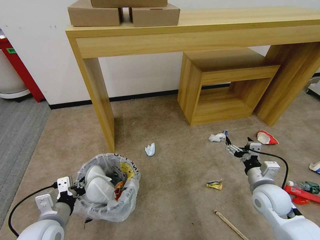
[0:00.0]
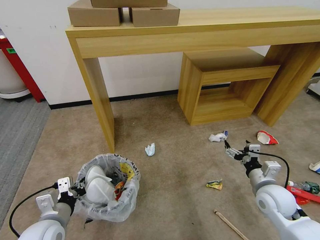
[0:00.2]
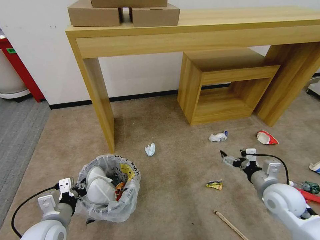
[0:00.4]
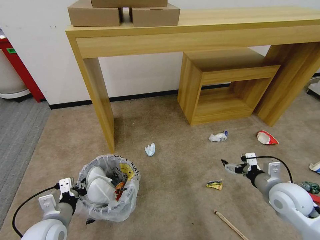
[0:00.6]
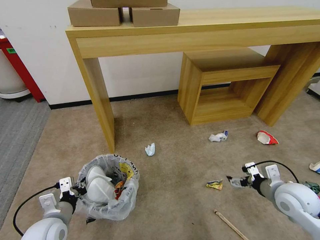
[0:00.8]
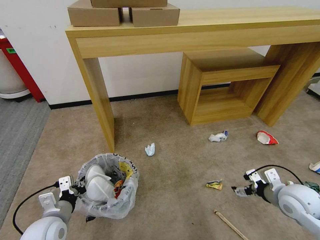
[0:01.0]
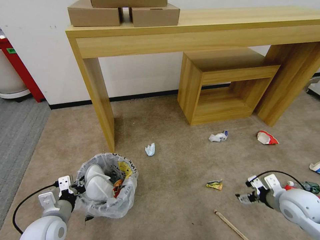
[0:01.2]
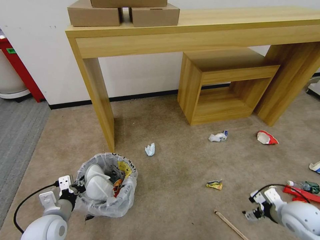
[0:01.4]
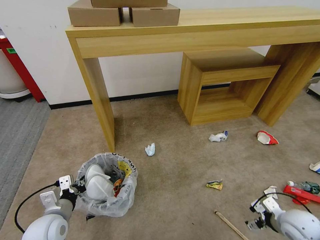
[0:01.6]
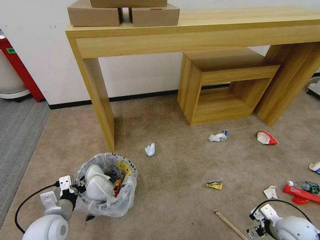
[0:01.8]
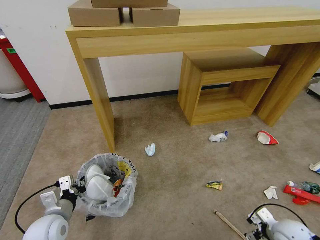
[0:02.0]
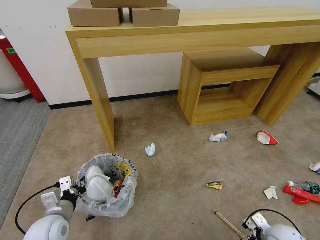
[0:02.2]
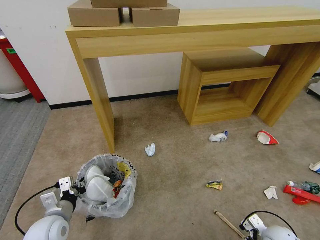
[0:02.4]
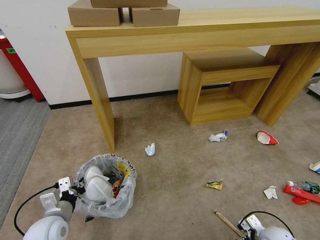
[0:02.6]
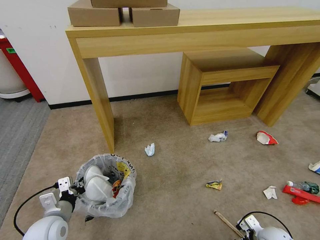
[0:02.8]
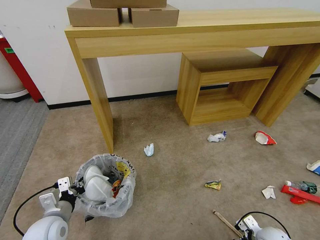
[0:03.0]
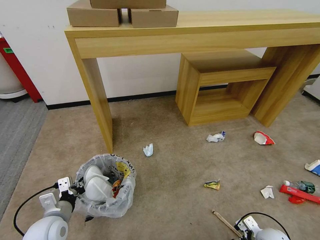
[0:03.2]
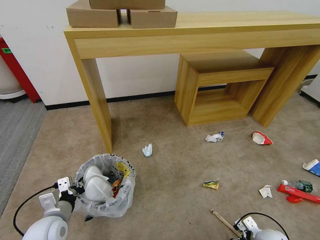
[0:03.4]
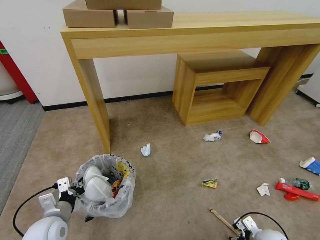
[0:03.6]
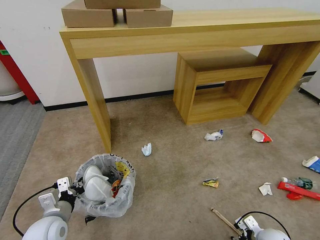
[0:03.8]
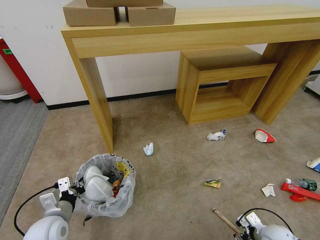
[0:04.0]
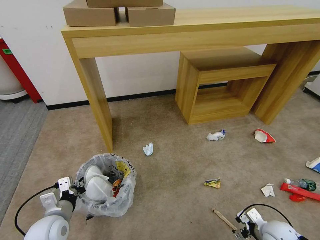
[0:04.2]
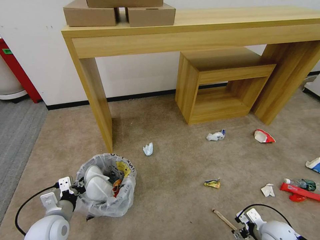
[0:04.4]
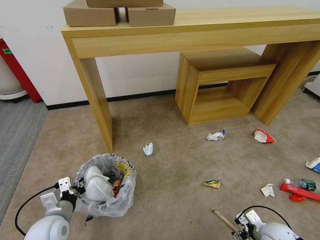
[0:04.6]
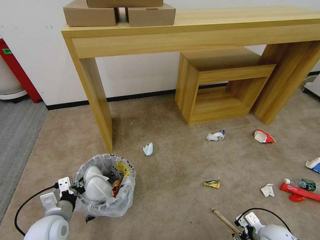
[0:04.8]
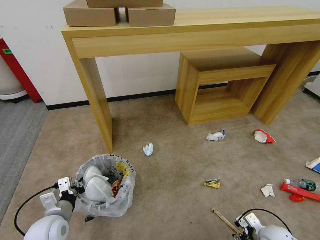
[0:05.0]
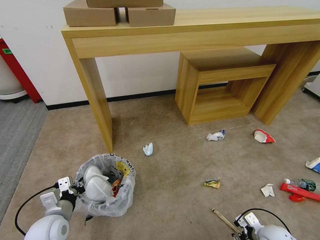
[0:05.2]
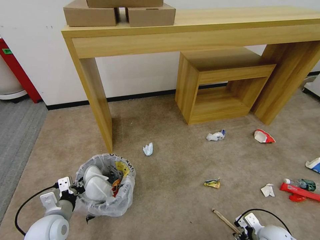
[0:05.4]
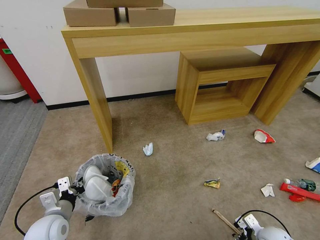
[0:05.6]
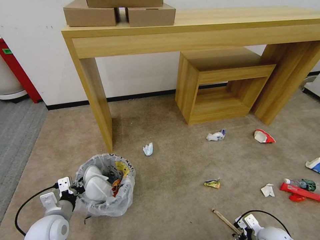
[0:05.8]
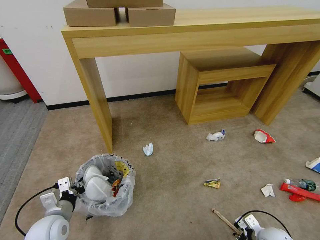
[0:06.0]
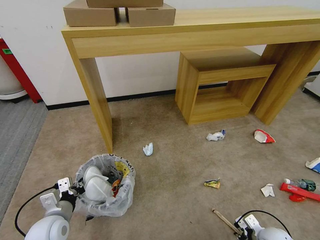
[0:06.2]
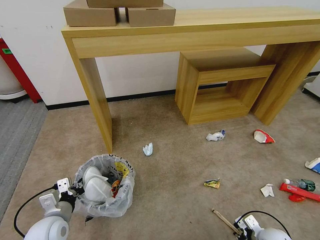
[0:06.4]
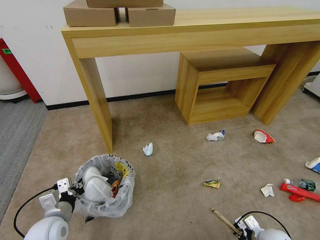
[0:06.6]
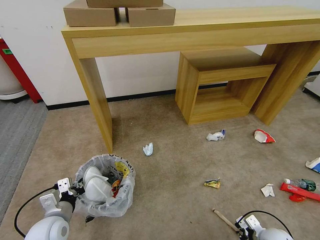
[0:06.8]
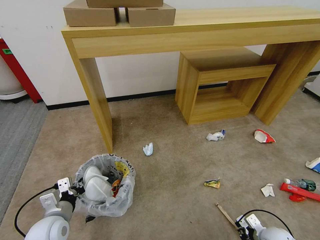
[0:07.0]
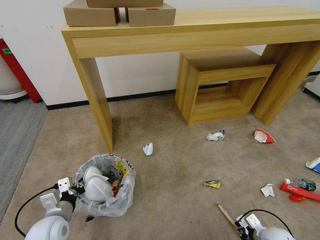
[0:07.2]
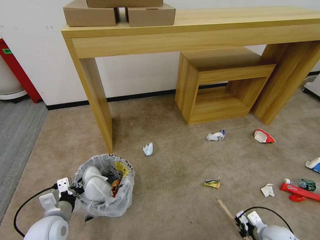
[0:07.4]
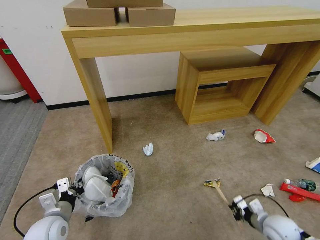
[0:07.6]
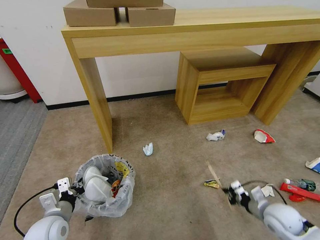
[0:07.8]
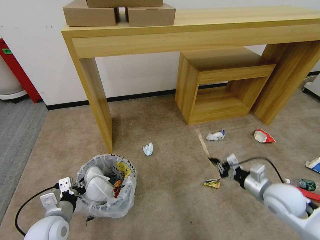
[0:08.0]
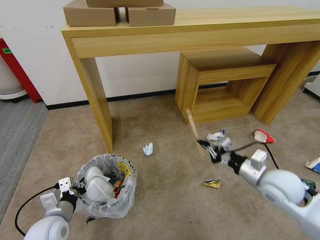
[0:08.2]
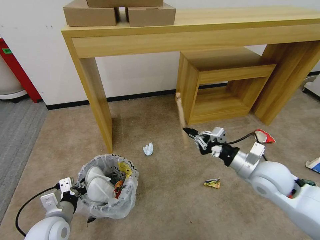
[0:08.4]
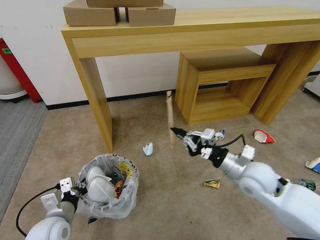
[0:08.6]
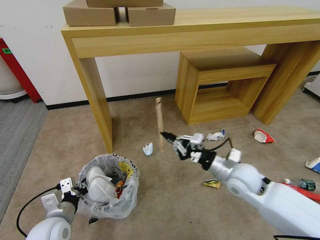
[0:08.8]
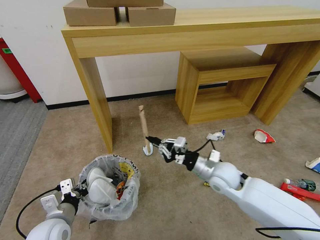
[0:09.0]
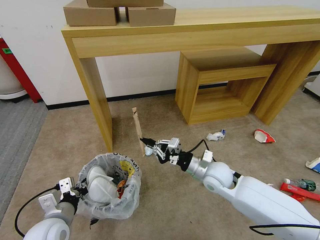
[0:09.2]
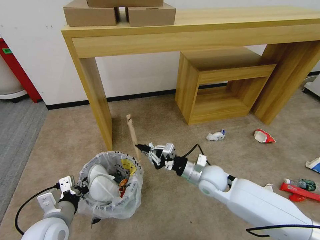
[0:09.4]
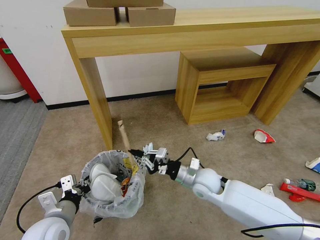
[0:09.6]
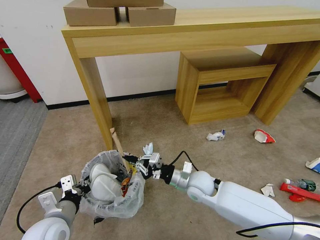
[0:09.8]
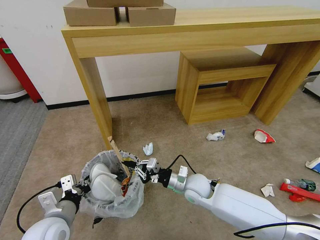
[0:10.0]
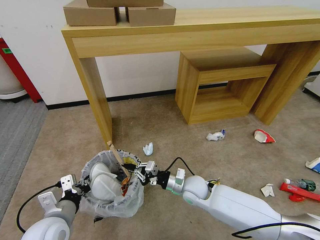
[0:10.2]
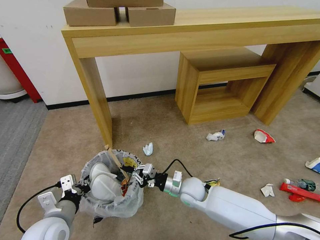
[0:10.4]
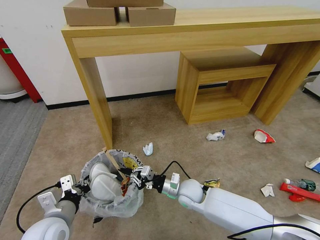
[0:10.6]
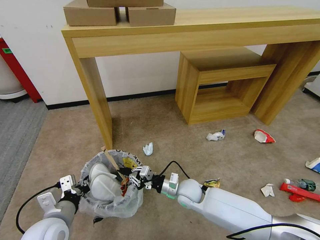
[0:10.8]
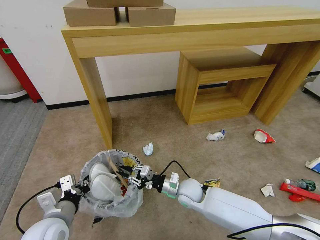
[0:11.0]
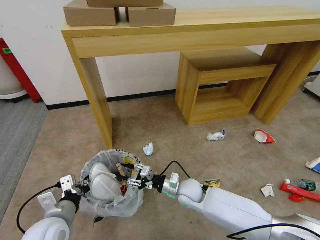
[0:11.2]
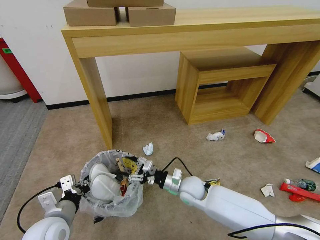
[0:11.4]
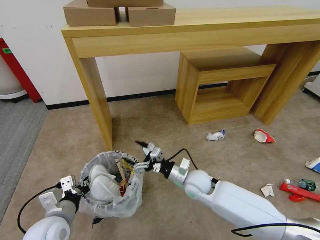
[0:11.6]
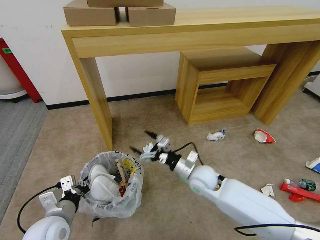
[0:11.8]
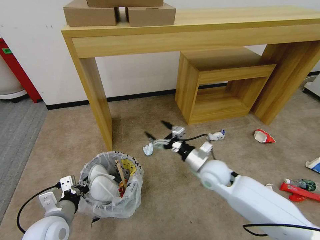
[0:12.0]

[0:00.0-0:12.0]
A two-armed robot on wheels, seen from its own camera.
Task of the whole recording: Pick up the trash bin and place the garbage on the floor into it.
0:00.0 to 0:01.6: The right gripper moves to the right and backward, about 10 cm.
0:01.6 to 0:03.0: The right gripper heads downward, covering approximately 10 cm.
0:03.0 to 0:04.4: There are only small adjustments of the grippers.
0:04.4 to 0:06.0: The right gripper closes its fingers.
0:06.0 to 0:07.6: The right gripper changes place by about 5 cm, and closes up.
0:07.6 to 0:09.0: The right gripper travels to the left, upward and forward by about 25 cm.
0:09.0 to 0:10.4: The right gripper goes about 15 cm downward and to the left.
0:10.4 to 0:12.0: The right gripper is displaced upward by roughly 5 cm, and opens up.

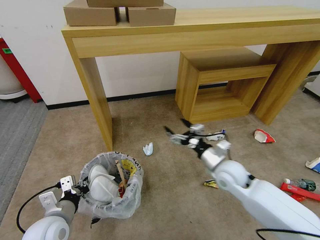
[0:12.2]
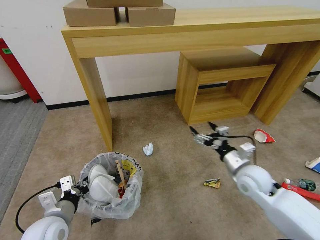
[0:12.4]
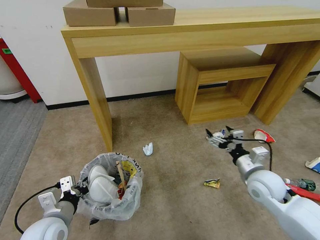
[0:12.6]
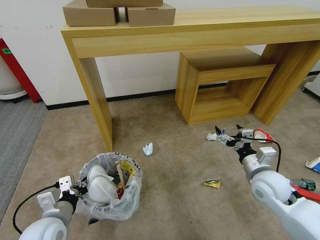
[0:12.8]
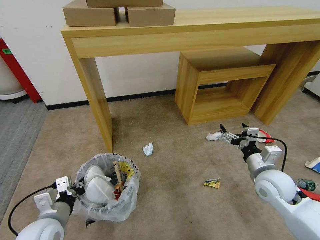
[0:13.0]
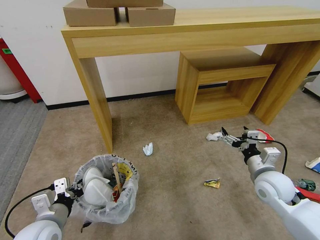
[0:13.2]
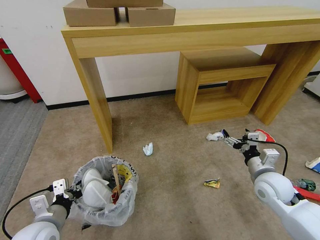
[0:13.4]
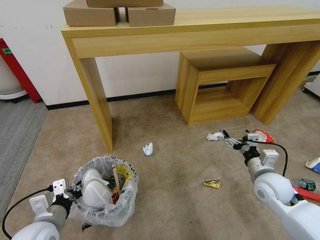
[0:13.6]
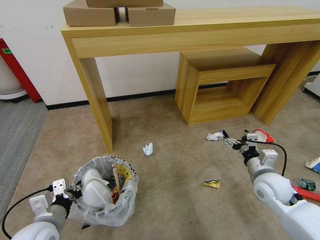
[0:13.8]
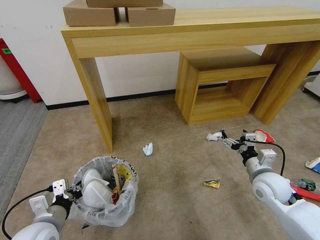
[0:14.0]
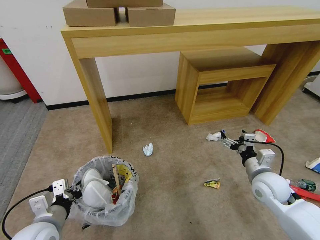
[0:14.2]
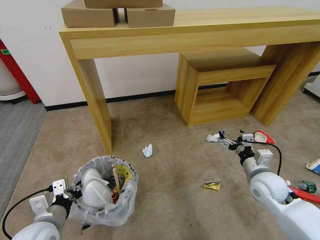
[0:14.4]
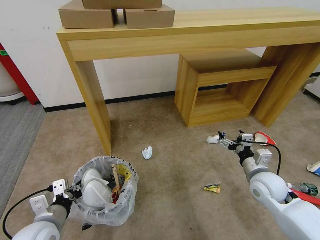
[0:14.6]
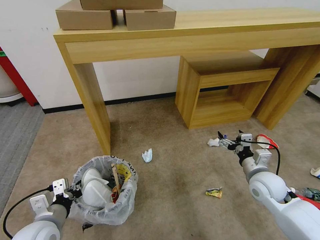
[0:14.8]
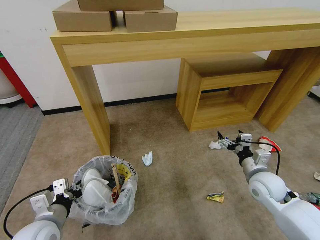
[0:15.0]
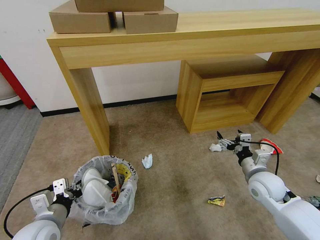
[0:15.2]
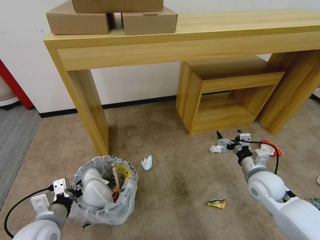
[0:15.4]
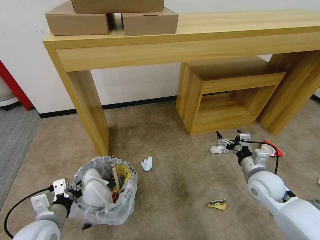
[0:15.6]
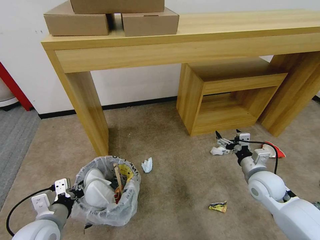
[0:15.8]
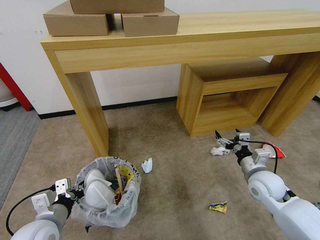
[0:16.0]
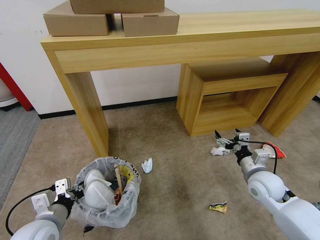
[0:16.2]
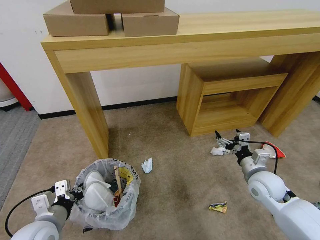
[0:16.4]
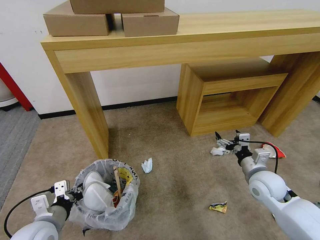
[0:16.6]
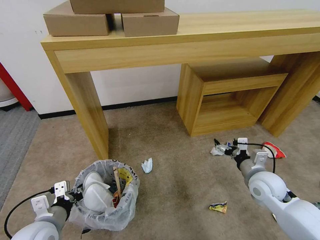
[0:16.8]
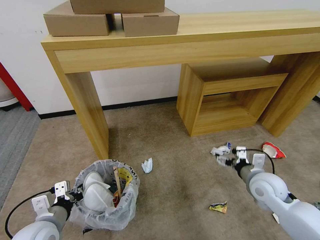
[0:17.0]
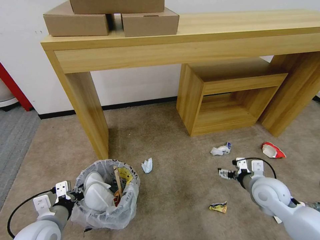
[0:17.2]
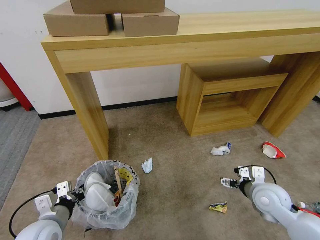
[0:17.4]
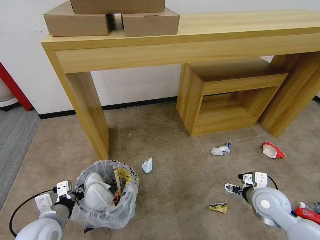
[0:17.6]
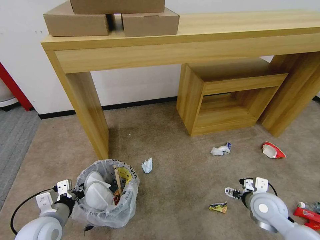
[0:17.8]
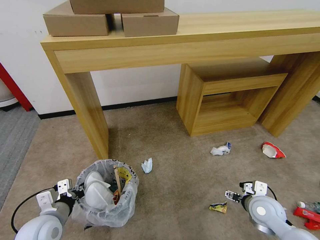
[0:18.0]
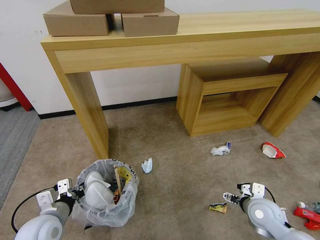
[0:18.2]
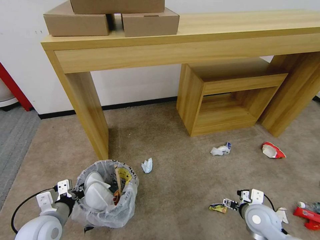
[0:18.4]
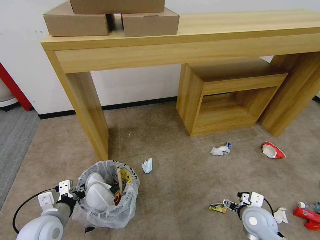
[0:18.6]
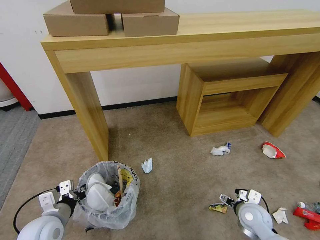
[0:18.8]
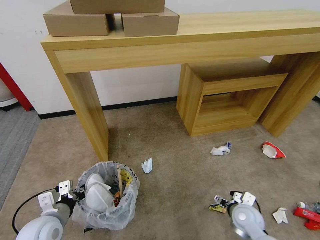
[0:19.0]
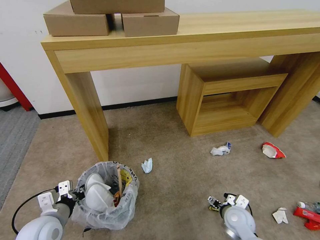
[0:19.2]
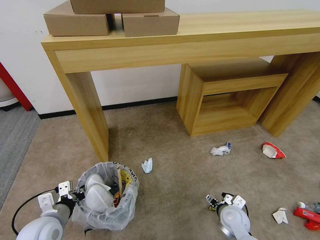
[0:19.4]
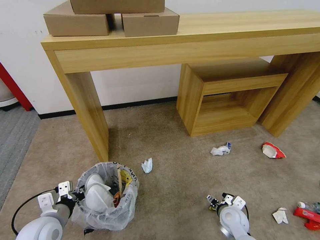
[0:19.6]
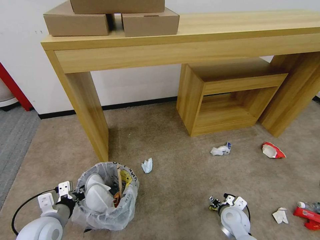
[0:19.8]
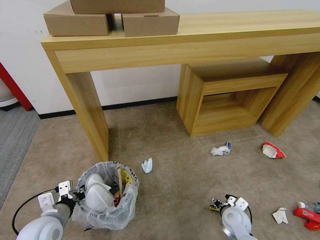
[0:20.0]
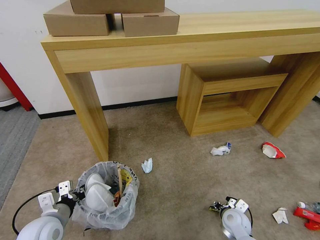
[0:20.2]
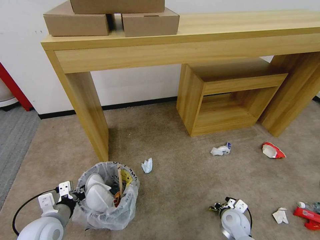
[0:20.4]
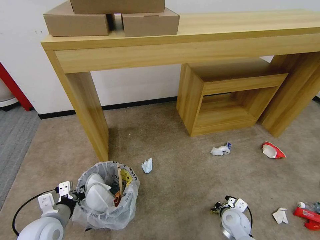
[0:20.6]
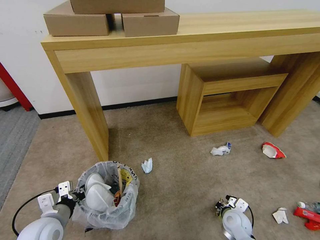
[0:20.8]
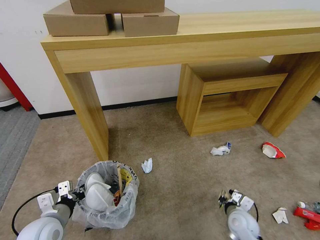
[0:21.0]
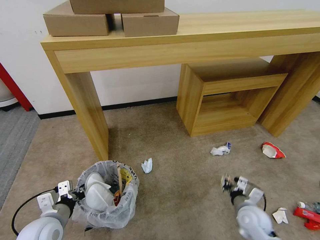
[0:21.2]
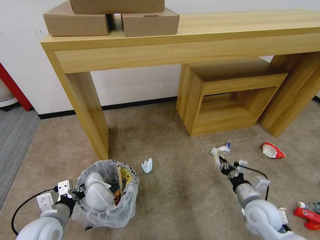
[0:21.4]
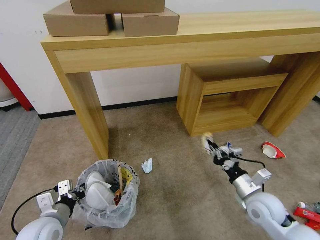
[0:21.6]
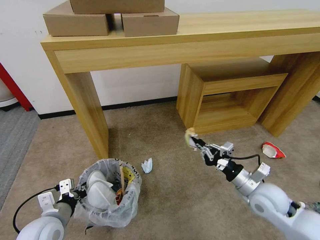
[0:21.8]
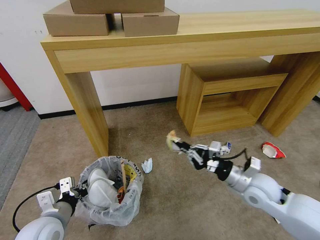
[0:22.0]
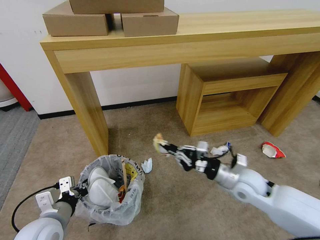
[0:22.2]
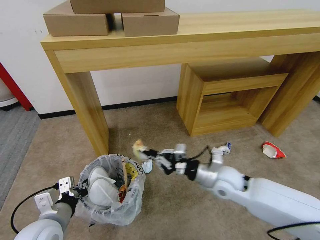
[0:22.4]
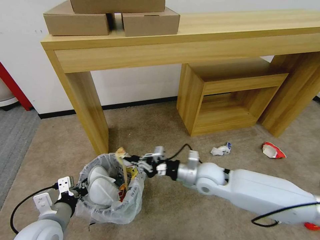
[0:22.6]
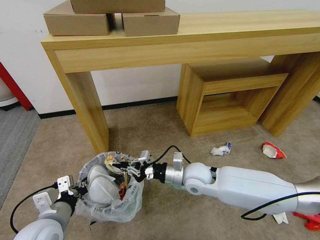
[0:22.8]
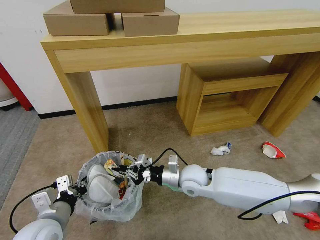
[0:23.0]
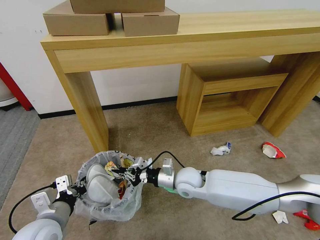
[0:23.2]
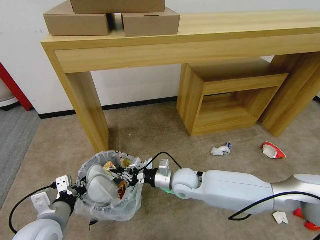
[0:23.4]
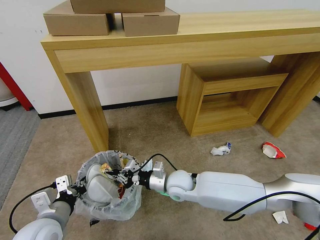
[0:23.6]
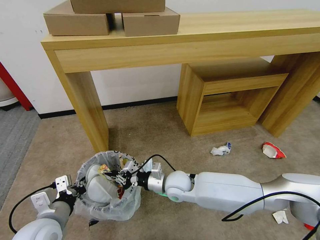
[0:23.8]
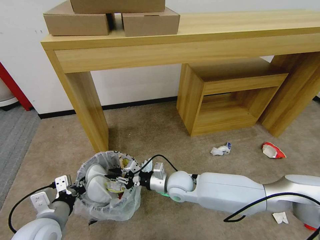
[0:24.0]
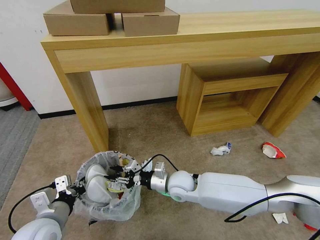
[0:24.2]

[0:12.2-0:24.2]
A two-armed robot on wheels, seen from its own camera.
Task of the whole recording: Pick up the trash bin and place the garbage on the floor into it.
0:12.2 to 0:13.8: The right gripper moves to the right, roughly 15 cm.
0:15.2 to 0:16.6: Both grippers stay put.
0:16.6 to 0:18.2: The right gripper goes approximately 10 cm backward and downward.
0:18.2 to 0:19.8: The right gripper goes approximately 10 cm downward and to the left.
0:19.8 to 0:21.2: The right gripper moves upward, roughly 5 cm, and closes its fingers.
0:21.2 to 0:22.6: The left gripper moves some 5 cm; the right gripper moves to the left, upward and forward, roughly 25 cm.
0:22.6 to 0:24.2: The right gripper travels to the left and downward by roughly 10 cm, and opens.
